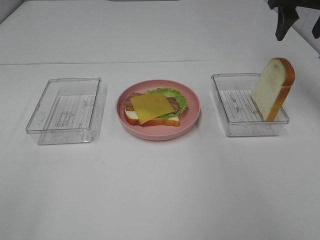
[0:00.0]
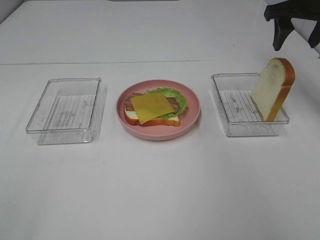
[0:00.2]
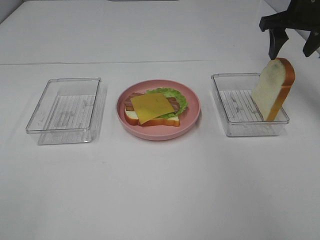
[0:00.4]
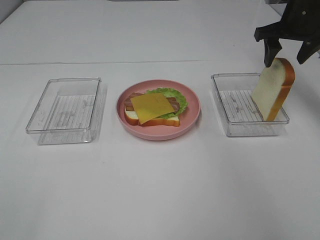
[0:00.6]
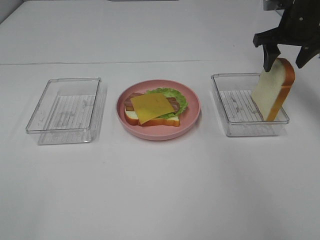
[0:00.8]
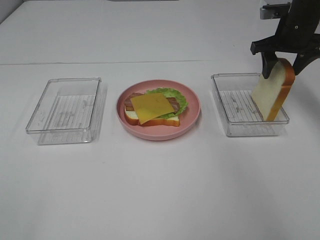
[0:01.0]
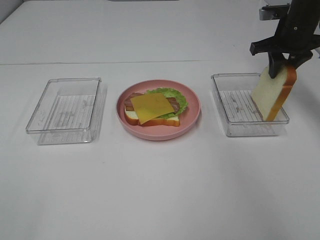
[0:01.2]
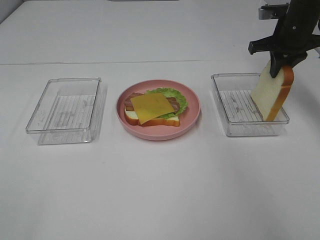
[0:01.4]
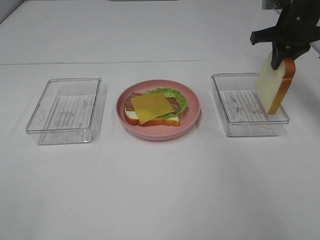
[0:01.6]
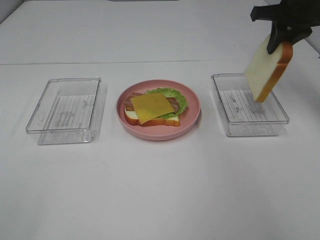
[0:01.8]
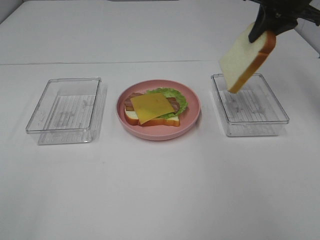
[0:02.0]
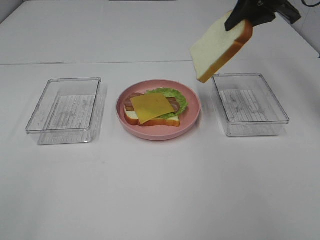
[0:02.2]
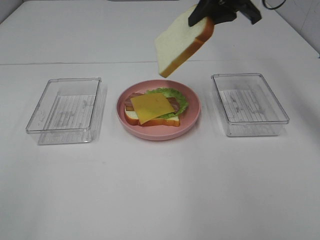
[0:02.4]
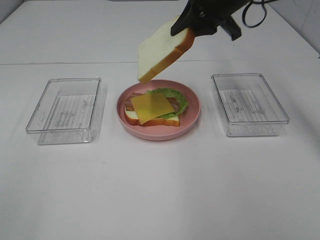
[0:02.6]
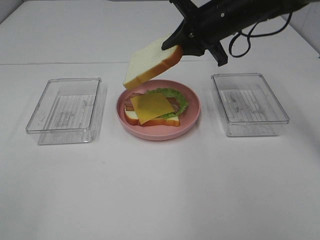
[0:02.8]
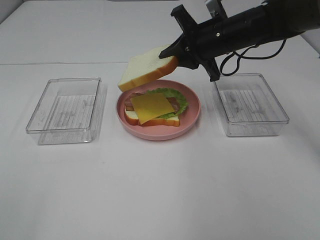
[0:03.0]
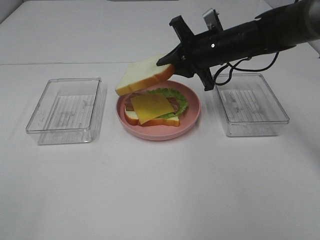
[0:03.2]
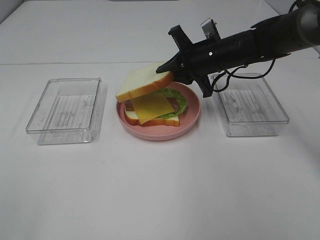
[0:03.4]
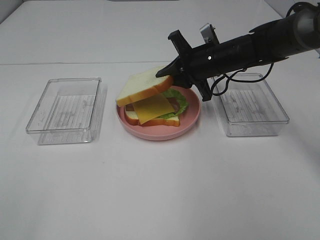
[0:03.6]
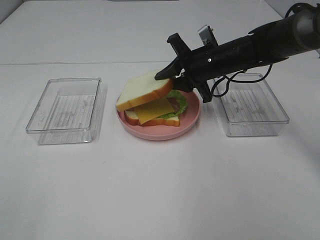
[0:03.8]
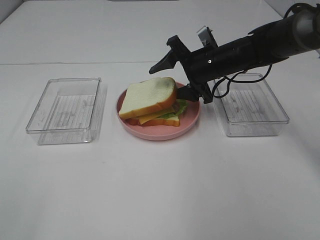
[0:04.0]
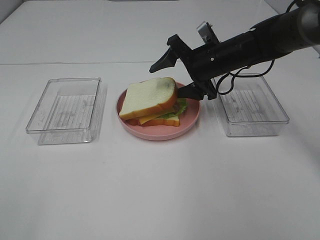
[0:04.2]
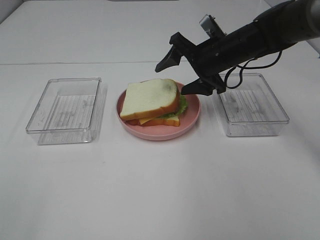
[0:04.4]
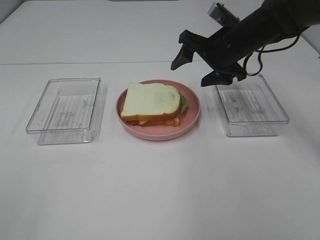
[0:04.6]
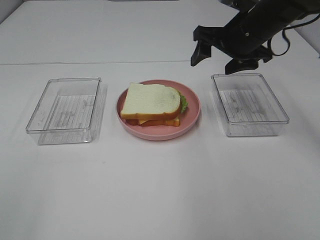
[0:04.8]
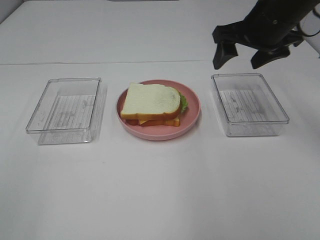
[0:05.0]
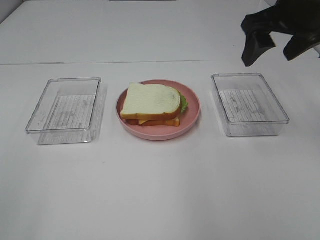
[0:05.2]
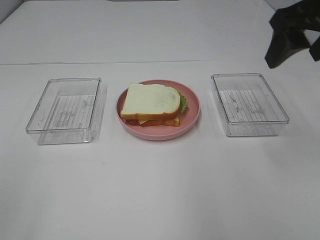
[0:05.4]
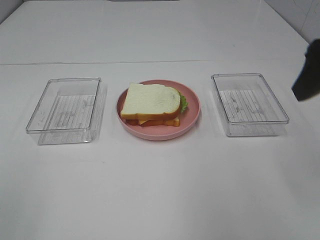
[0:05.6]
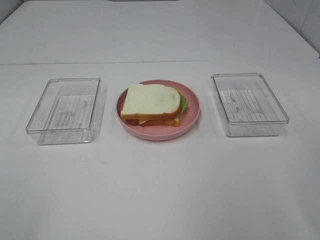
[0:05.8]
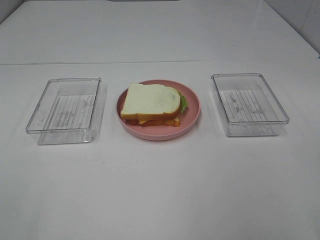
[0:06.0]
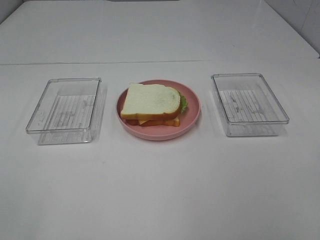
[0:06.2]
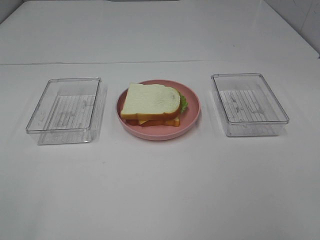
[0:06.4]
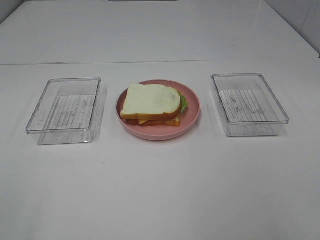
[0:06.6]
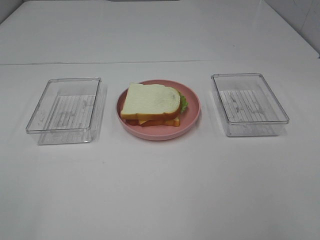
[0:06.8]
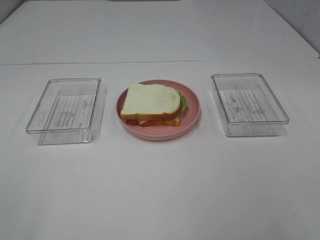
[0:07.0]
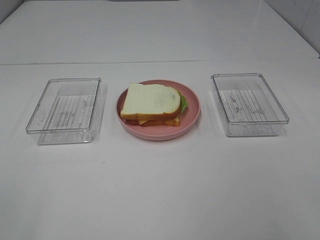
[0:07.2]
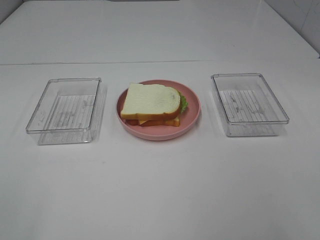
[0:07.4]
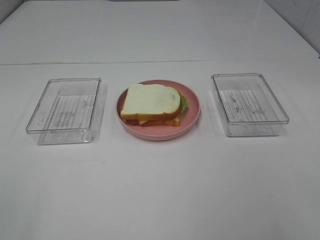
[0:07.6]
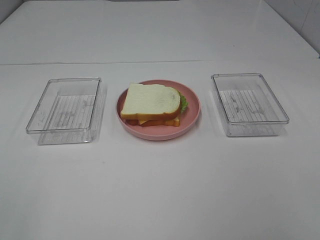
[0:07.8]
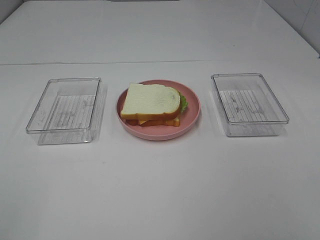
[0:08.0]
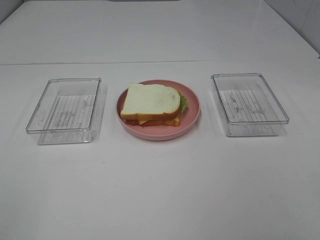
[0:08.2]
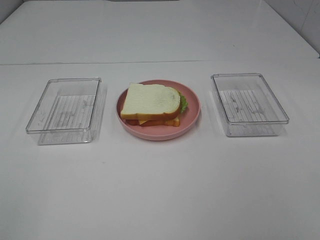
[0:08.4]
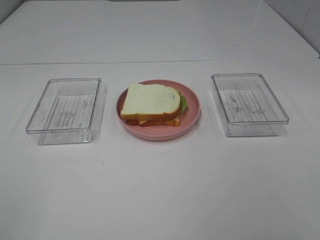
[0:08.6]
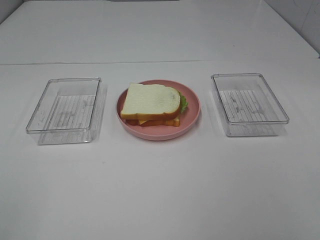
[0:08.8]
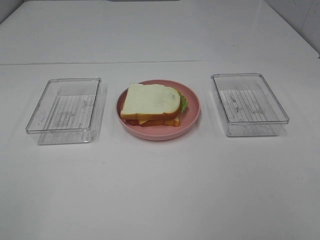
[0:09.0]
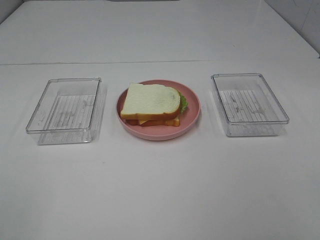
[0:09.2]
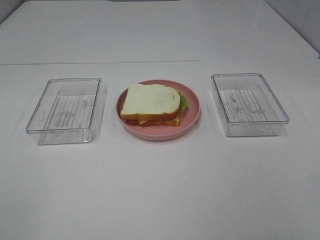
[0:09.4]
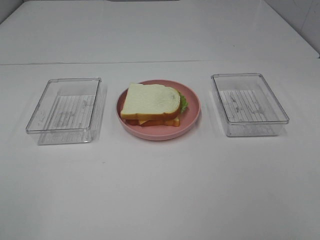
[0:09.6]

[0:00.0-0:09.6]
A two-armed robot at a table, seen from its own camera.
Task of the whole recording: Make sandwiches.
Step, 0:00.0 to 0:01.4: Right hand:grab the bread slice.
Step, 0:01.6 to 0:04.6: Right hand:place the bread slice on the cheese slice.
0:00.0 to 0:01.6: The right gripper heads downward, covering some 5 cm, and closes its fingers.
0:01.6 to 0:03.2: The right gripper goes some 15 cm to the left and downward.
0:03.2 to 0:04.8: The right gripper heads upward, covering approximately 5 cm, and opens its fingers.
0:04.8 to 0:06.4: The right gripper moves backward, approximately 35 cm.
0:08.0 to 0:09.6: The two grippers keep their place.

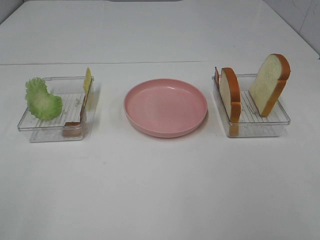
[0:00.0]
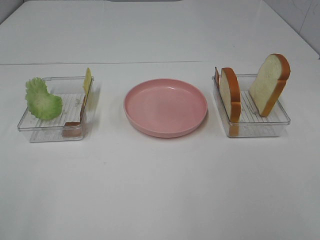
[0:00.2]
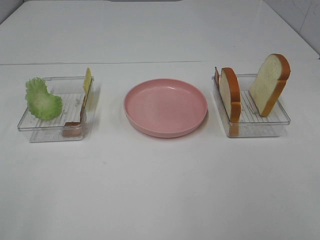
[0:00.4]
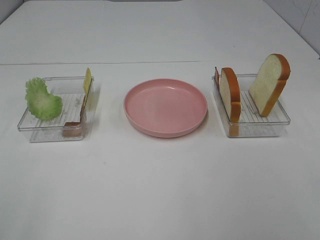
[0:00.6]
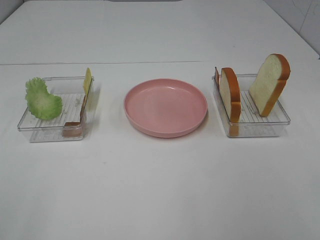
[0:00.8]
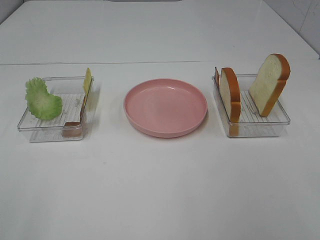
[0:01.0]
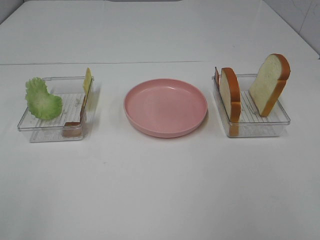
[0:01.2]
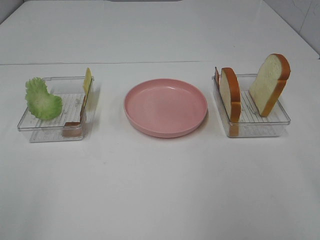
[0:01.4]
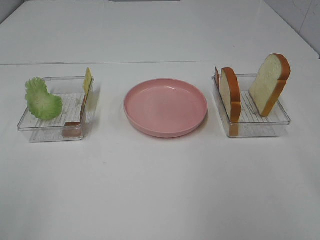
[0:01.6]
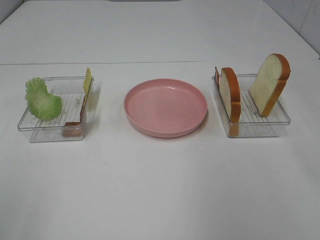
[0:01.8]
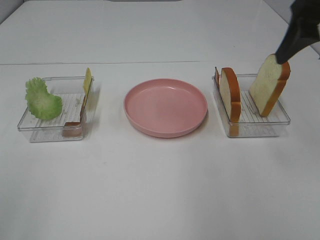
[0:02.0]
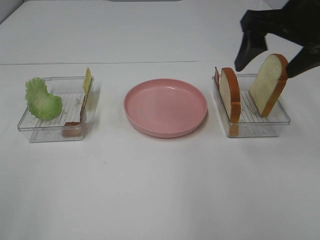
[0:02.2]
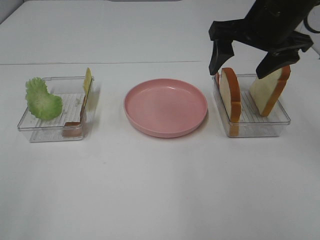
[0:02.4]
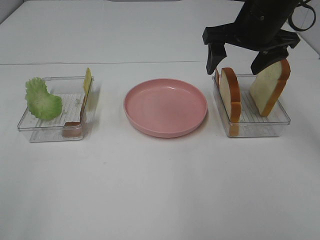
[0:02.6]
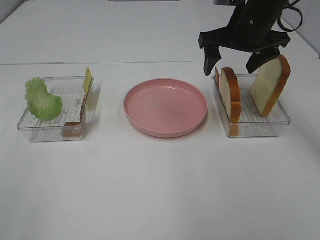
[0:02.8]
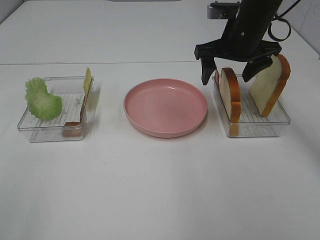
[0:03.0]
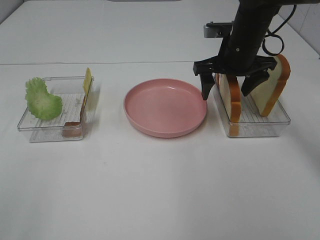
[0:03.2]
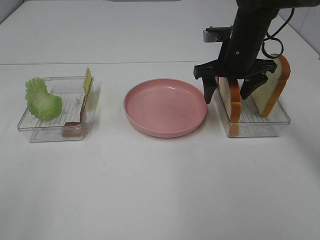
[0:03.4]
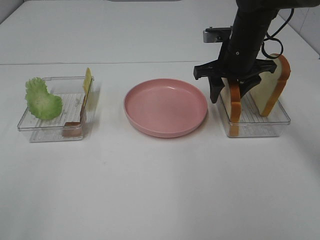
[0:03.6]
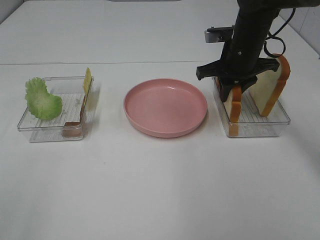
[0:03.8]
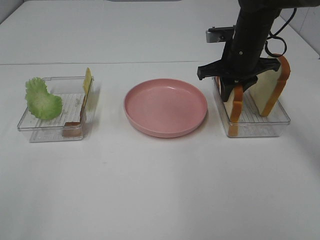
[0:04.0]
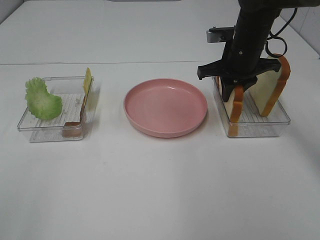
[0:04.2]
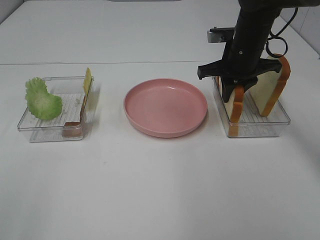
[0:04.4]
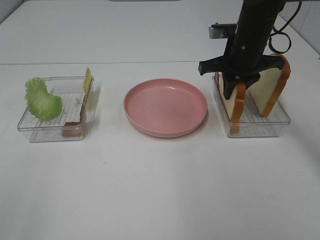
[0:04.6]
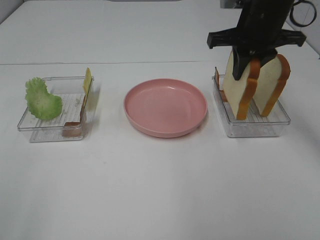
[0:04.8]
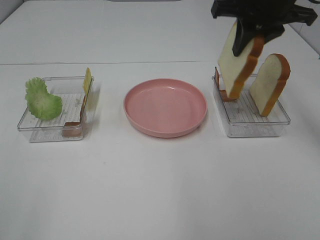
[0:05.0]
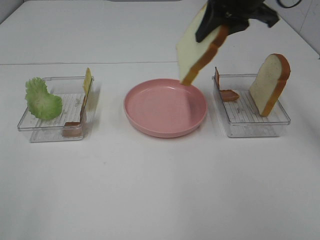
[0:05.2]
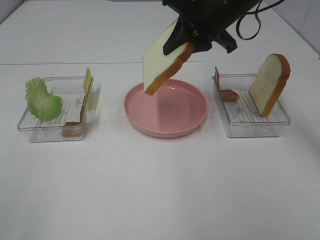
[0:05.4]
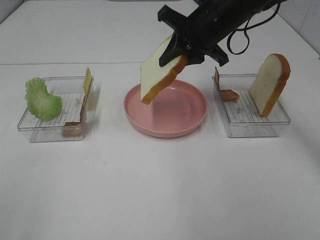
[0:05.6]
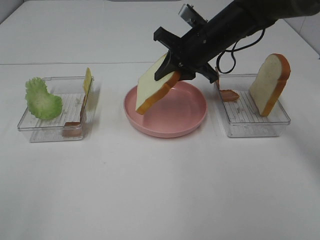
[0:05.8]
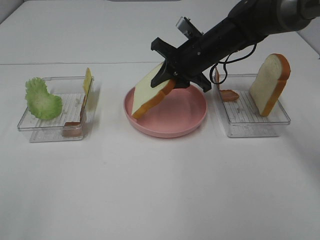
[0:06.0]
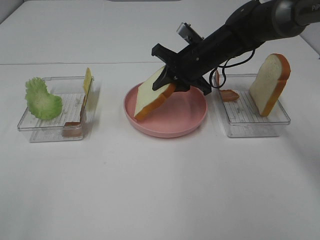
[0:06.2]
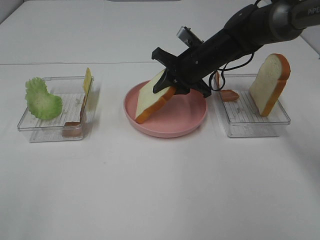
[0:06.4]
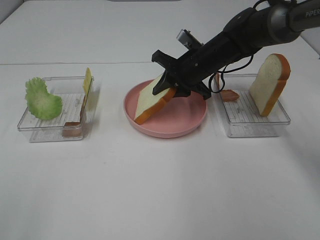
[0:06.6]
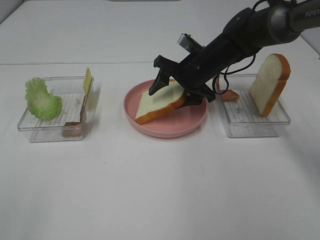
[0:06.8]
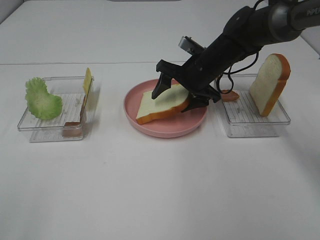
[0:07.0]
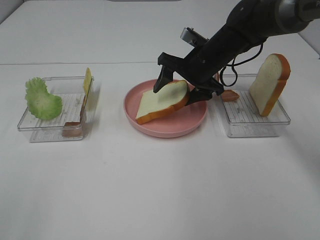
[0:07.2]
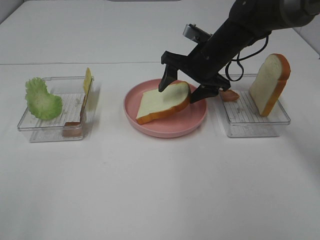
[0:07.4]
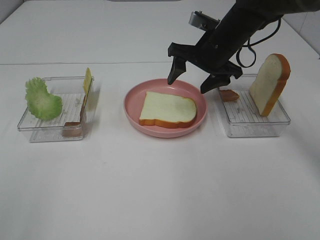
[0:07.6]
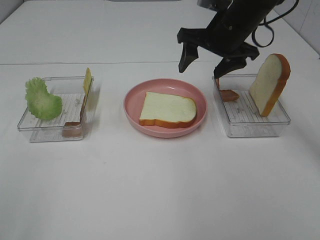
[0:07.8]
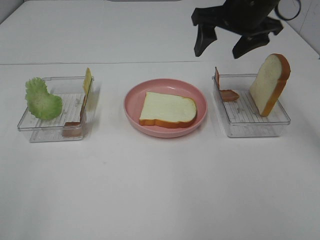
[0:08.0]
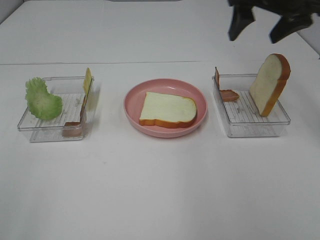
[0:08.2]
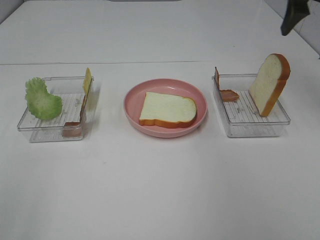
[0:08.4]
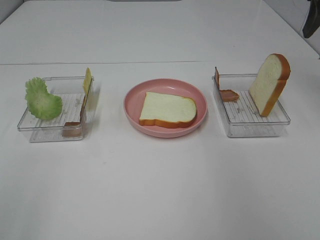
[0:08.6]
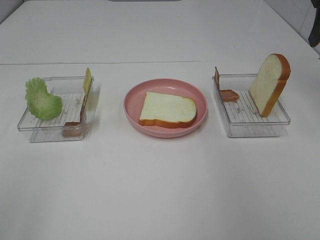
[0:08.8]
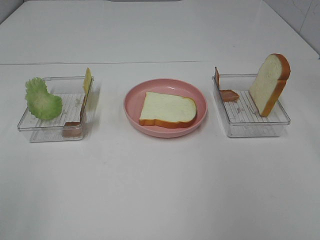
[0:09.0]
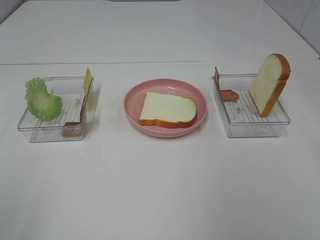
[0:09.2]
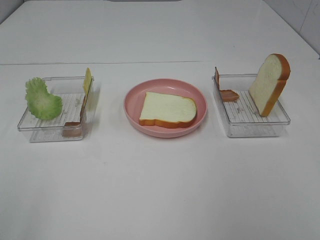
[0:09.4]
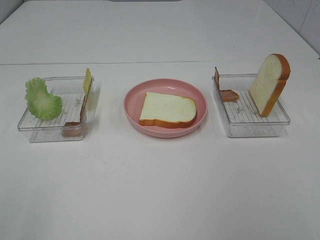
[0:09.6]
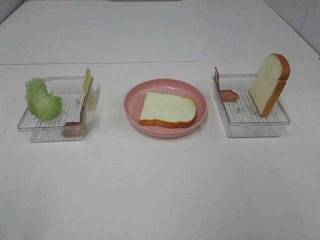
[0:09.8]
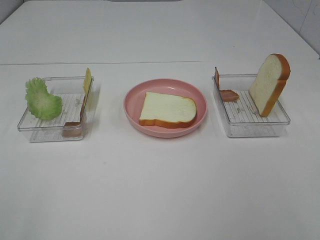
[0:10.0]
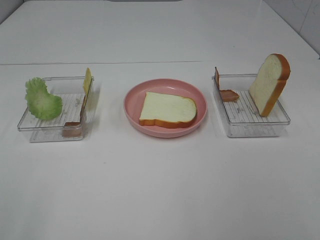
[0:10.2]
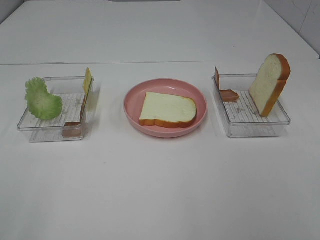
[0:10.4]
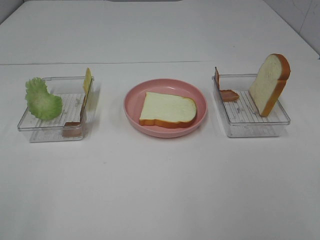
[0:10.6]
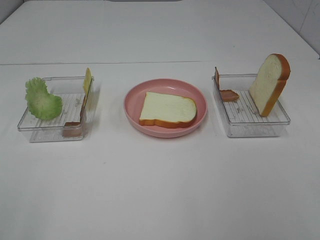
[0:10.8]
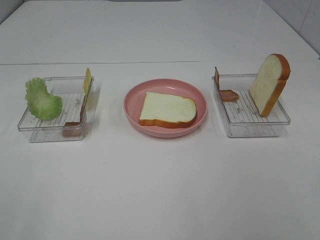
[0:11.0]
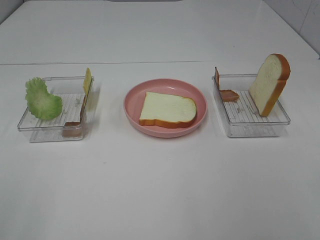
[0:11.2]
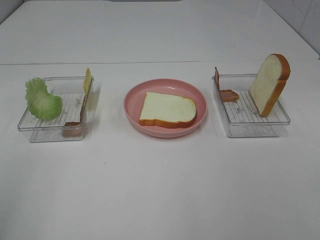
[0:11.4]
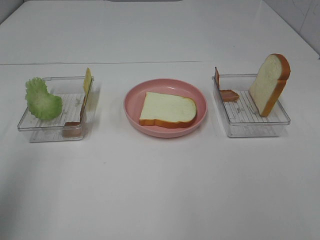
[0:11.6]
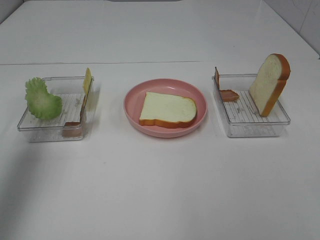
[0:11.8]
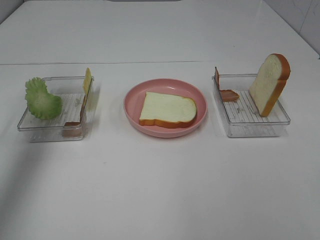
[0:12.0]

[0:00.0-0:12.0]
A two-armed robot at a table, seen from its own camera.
Task of the whole recording: Make sandwiches.
Step, 0:00.0 to 0:04.0: Right hand:grab the bread slice.
Step, 0:04.2 to 0:07.6: Right hand:place the bread slice on the plate.
0:01.6 to 0:03.0: The right gripper heads forward, downward and to the left, covering about 30 cm.
0:03.0 to 0:04.4: The right gripper closes.
0:04.4 to 0:06.0: The right gripper is displaced to the left by approximately 5 cm, and moves about 15 cm upward and comes back.
0:06.0 to 0:07.6: The right gripper opens up.
0:07.6 to 0:09.0: The right gripper shifts about 30 cm to the right, upward and backward.
0:10.4 to 0:12.0: The left gripper heads forward, covering approximately 35 cm.
